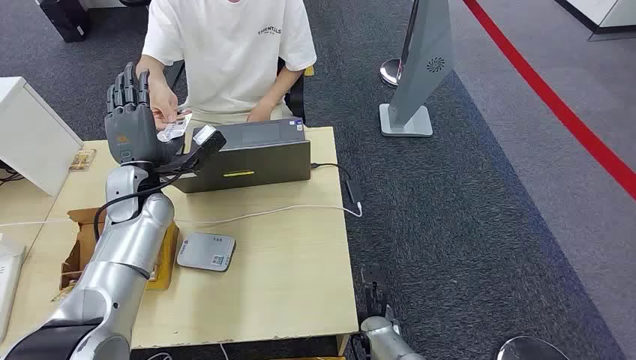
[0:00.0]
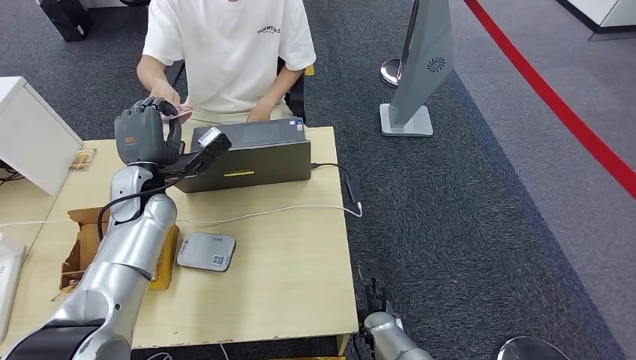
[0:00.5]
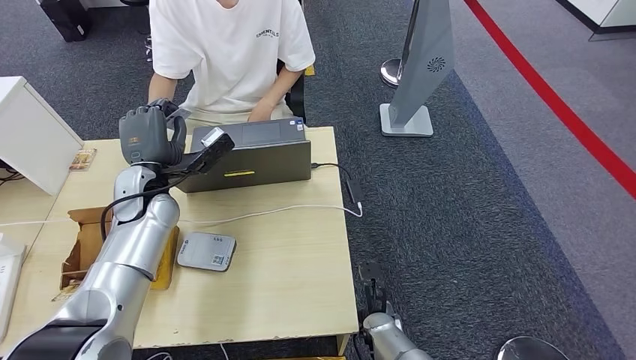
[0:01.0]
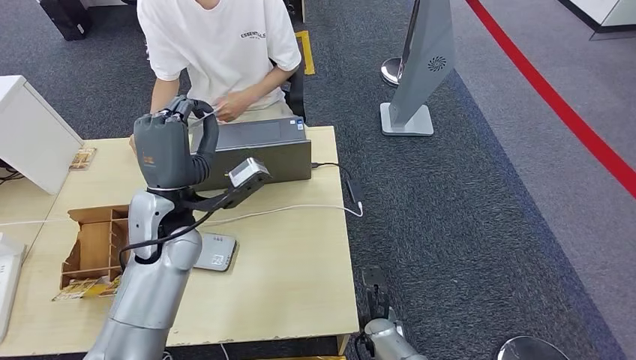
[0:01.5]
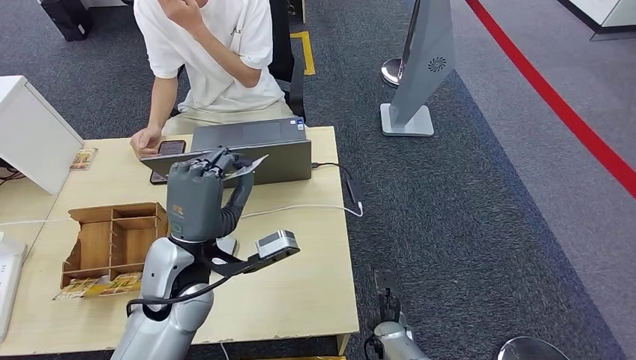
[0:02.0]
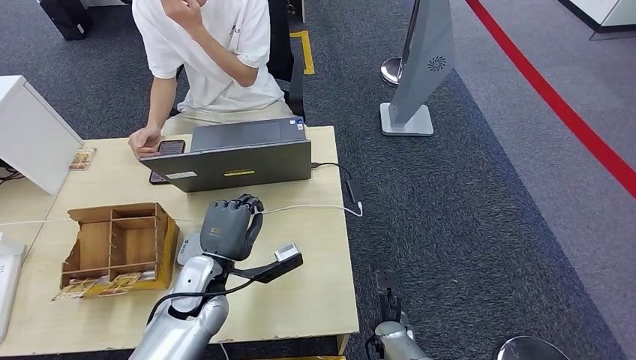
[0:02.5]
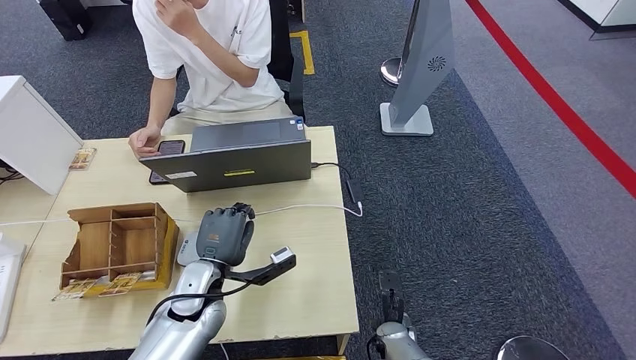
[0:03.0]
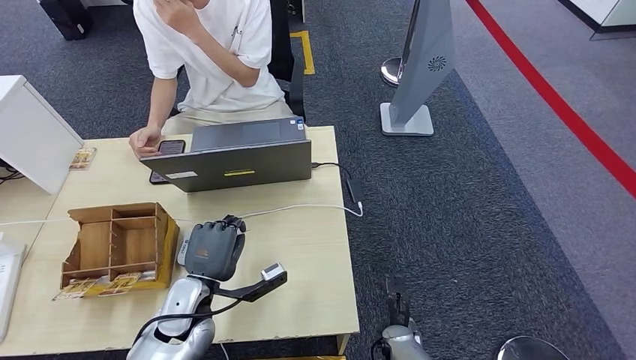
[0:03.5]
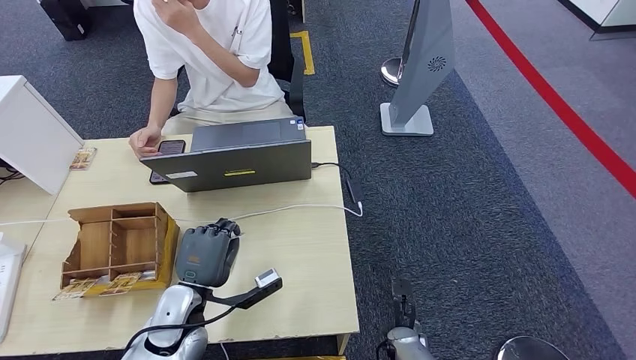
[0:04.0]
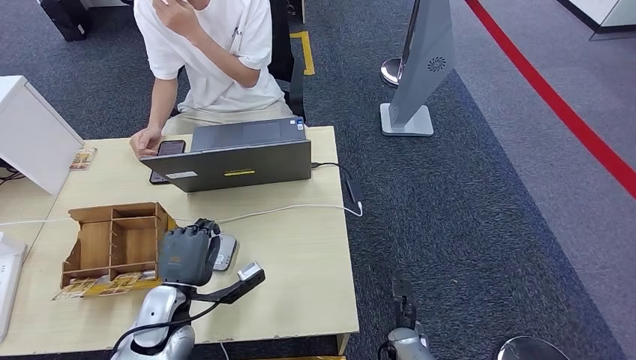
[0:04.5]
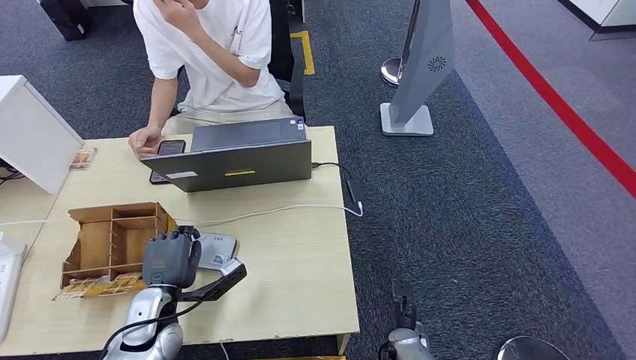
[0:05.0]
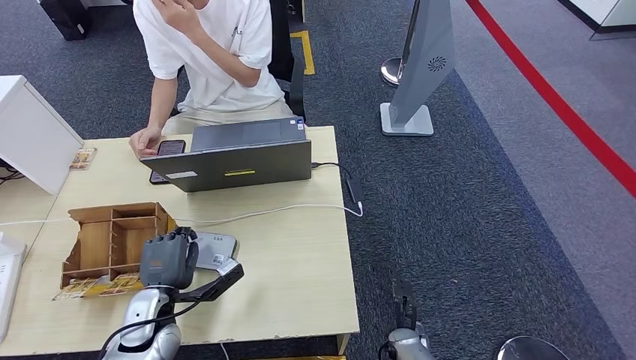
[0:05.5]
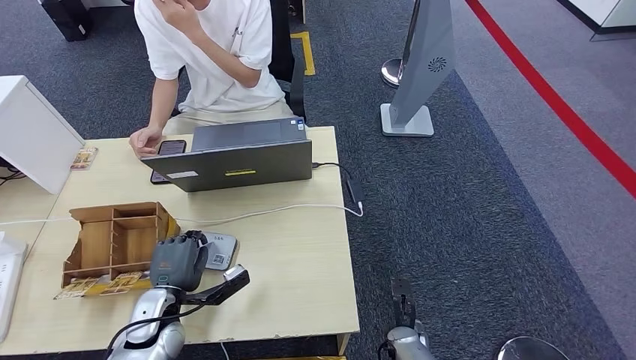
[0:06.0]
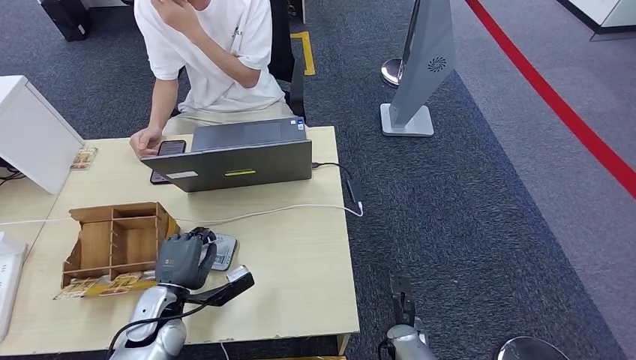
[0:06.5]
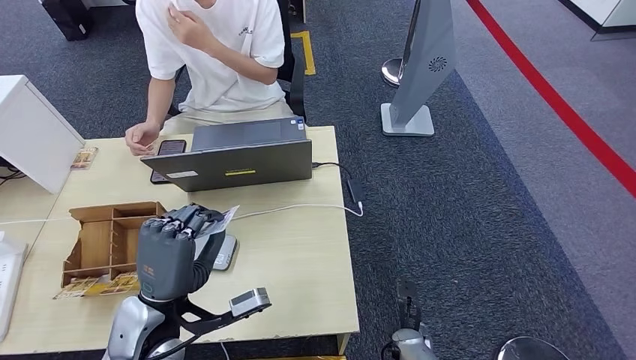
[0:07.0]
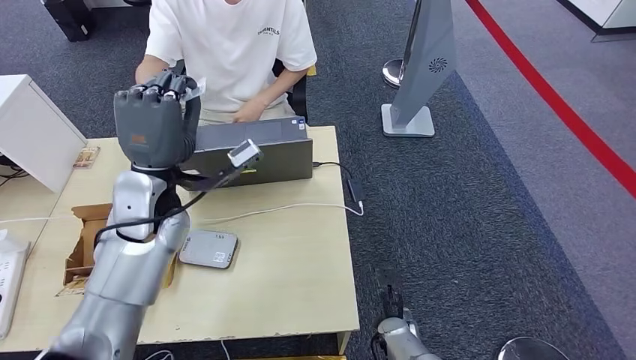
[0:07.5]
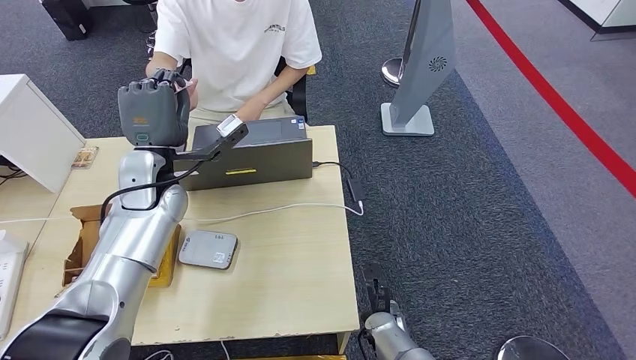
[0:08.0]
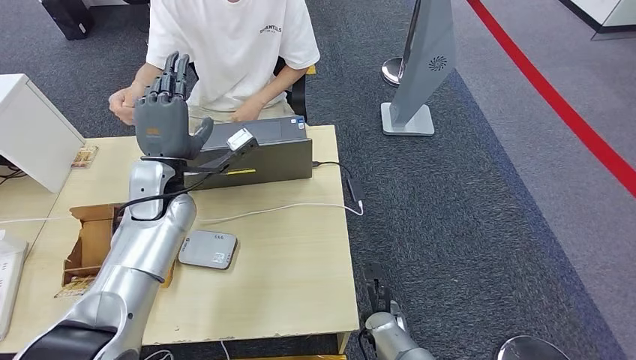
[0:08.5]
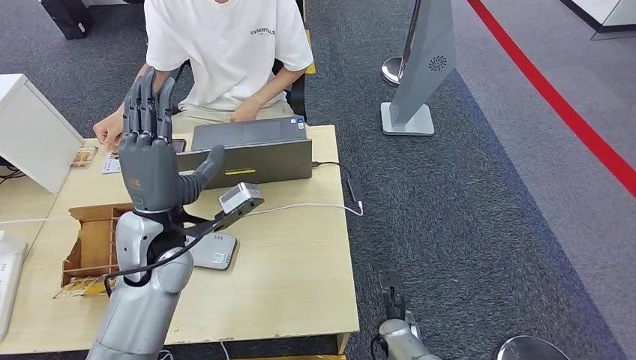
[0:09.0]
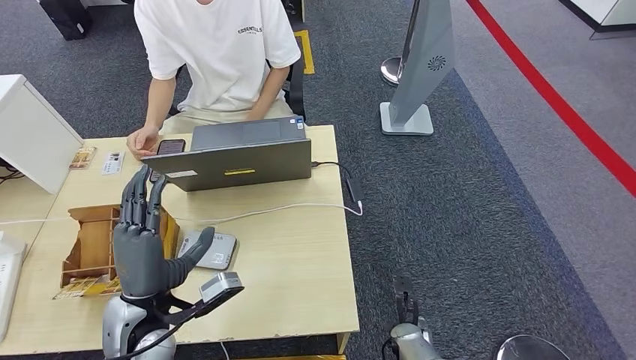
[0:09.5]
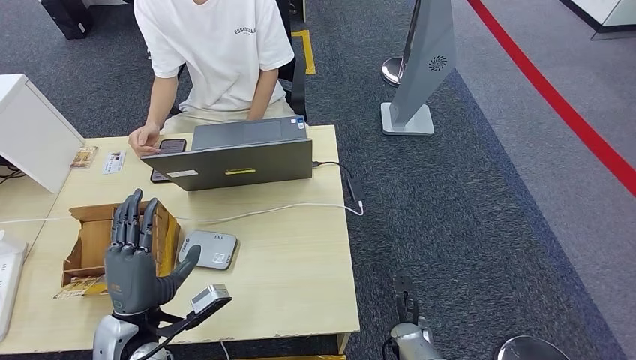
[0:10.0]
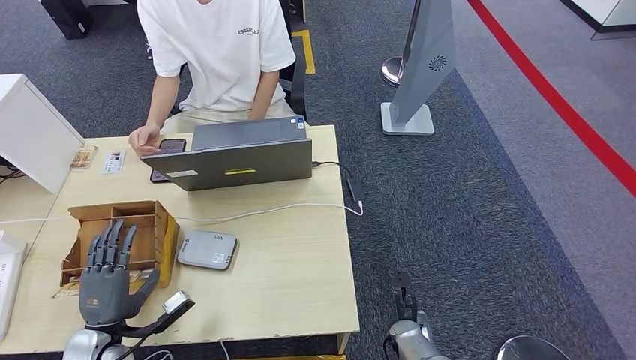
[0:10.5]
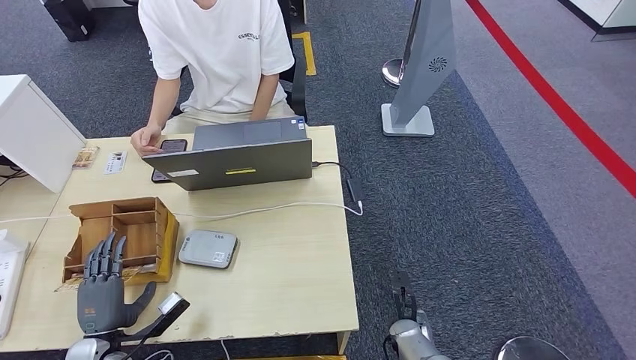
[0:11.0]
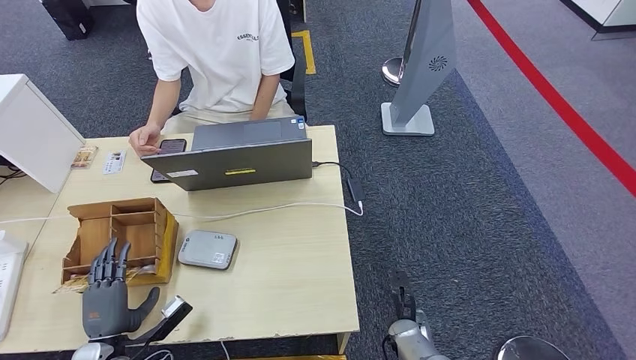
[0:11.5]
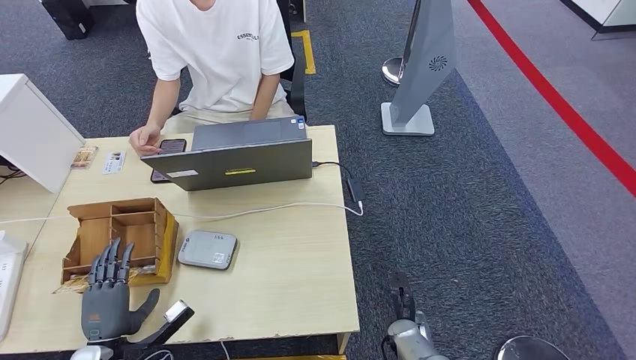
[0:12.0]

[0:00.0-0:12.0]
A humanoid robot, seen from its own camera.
Step, 0:00.0 to 0:02.5: Take the ID card from the person's hand.
Step, 0:03.0 to 0:07.0: Place the ID card on the card reader.
Step, 0:07.5 to 0:10.0: Hand the ID card to the person.
0:02.0 to 0:04.0: The left hand moves downward, some 15 cm.
0:04.0 to 0:06.0: The left hand heads to the left, covering approximately 5 cm.
0:08.0 to 0:10.0: The left hand goes about 25 cm backward and downward. The right hand moves to the right, about 5 cm.
0:10.0 to 0:12.0: The left hand travels downward and to the left by some 15 cm.

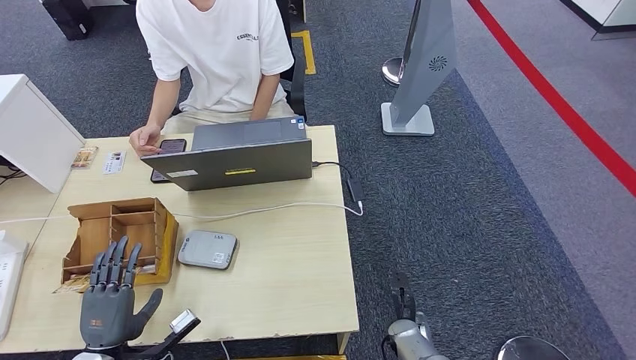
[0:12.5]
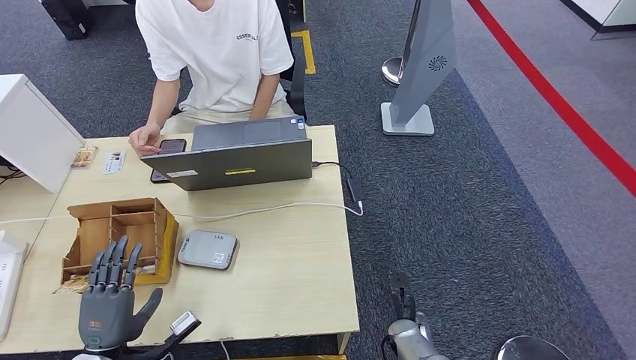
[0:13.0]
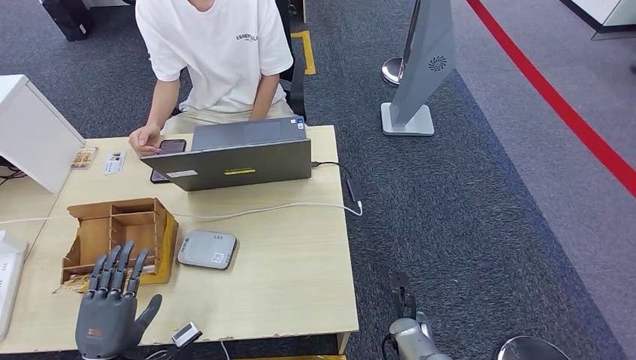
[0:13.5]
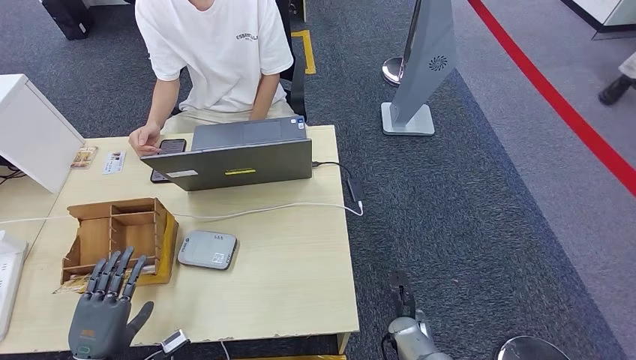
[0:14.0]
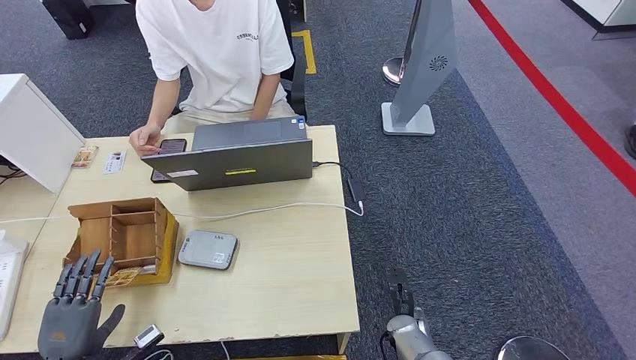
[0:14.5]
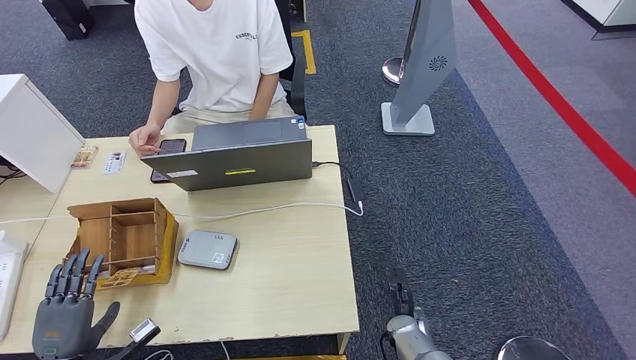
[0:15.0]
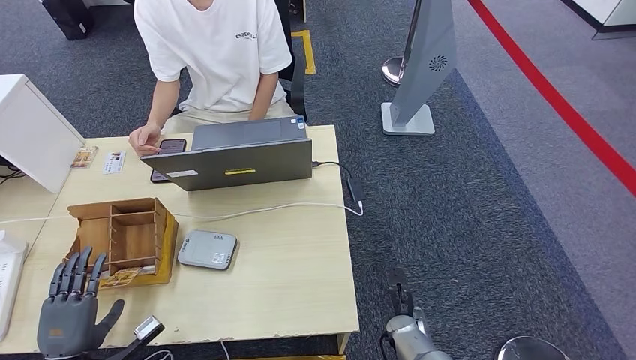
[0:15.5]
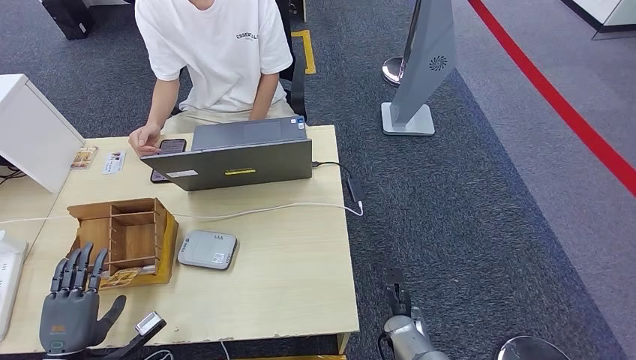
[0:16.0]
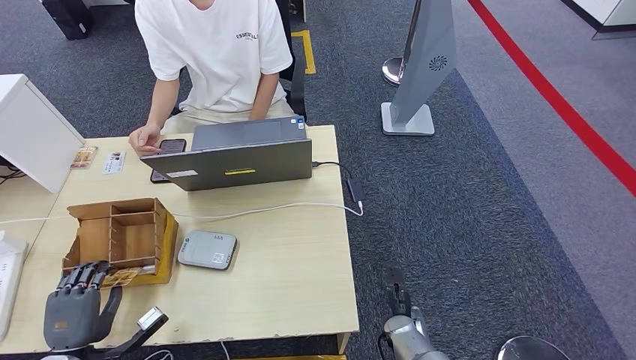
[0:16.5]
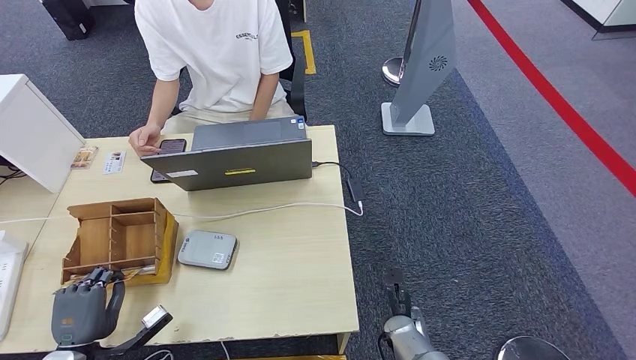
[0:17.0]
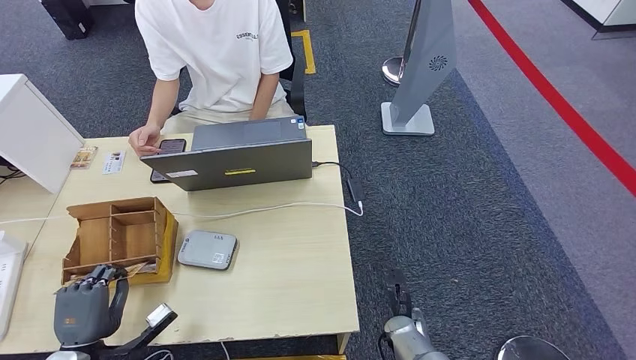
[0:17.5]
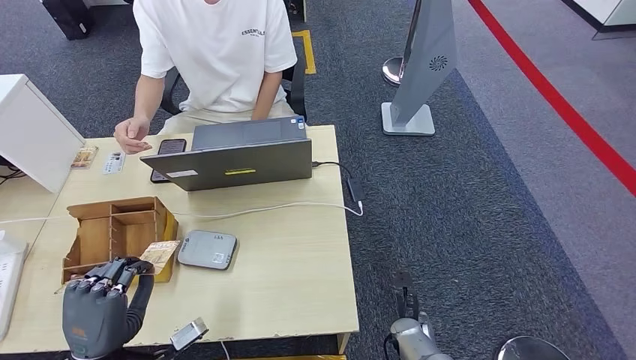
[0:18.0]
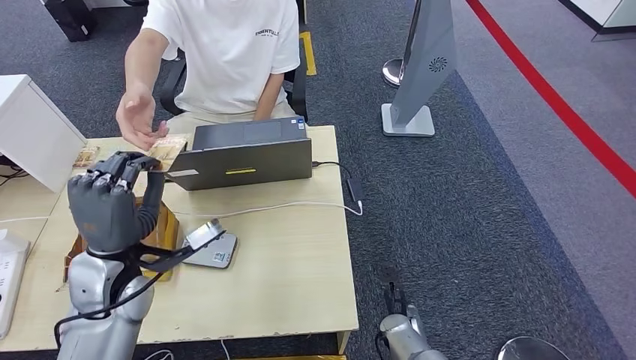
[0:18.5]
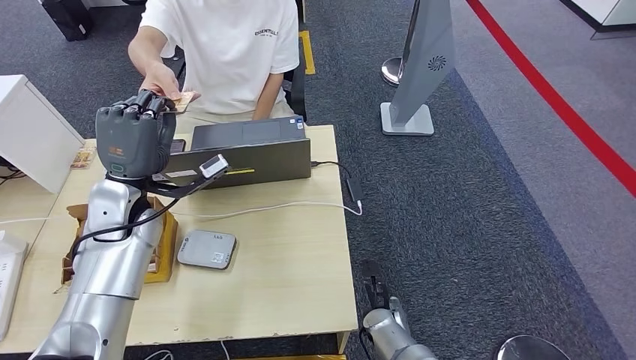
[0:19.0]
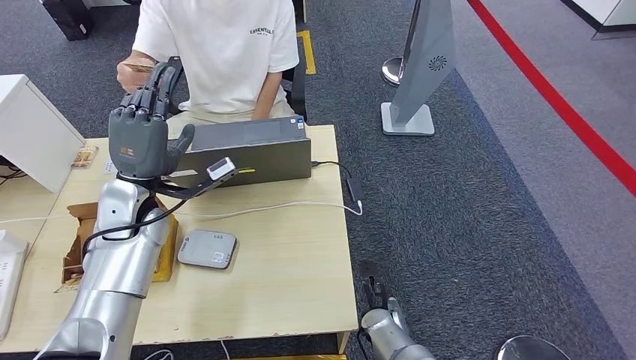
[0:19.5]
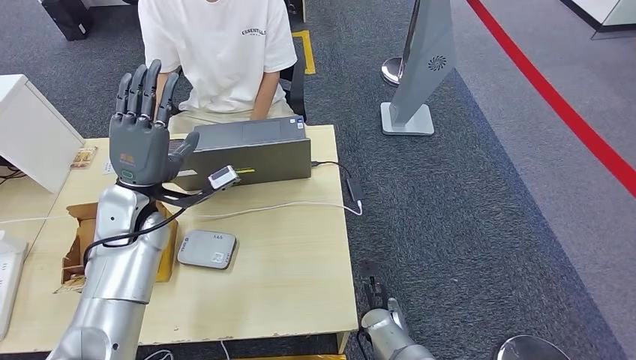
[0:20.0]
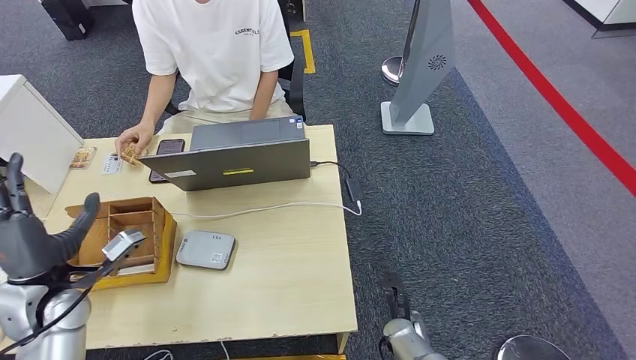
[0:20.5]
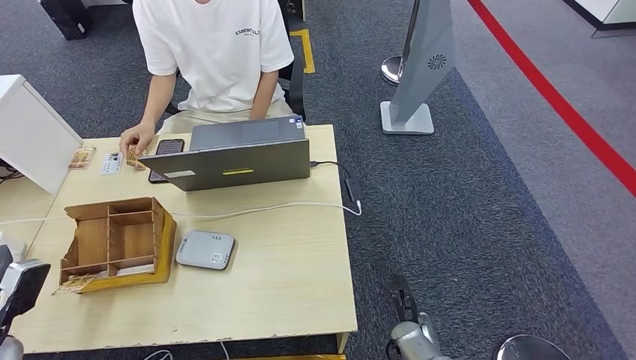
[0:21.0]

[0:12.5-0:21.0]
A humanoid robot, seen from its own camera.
Step, 0:12.5 to 0:17.5: Pick up the room key from the key card box.
Step, 0:18.0 to 0:21.0: Hand the room key to the person.
0:12.5 to 0:14.5: The left hand travels to the left by approximately 10 cm.
0:14.5 to 0:16.5: The hands move only a little.
0:16.5 to 0:19.0: The left hand is displaced upward, forward and to the right by approximately 35 cm.
0:19.0 to 0:21.0: The left hand heads to the left, backward and downward, covering approximately 30 cm. The right hand is displaced to the right by roughly 5 cm.
